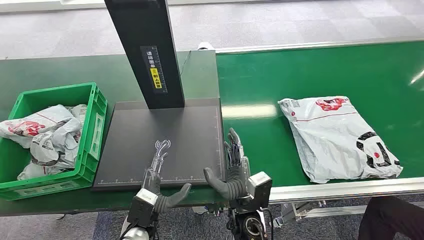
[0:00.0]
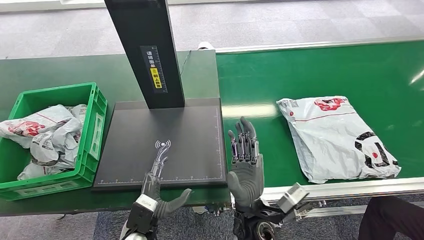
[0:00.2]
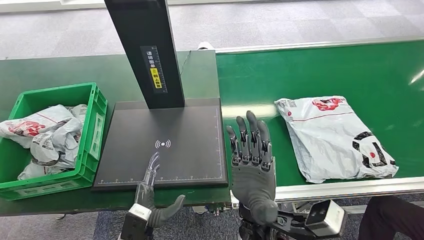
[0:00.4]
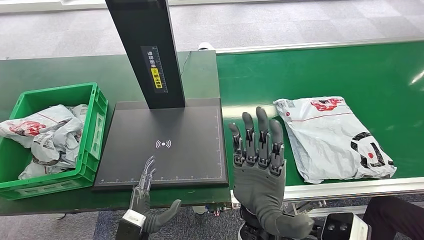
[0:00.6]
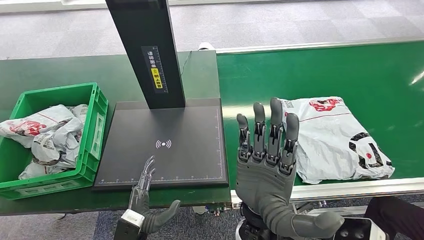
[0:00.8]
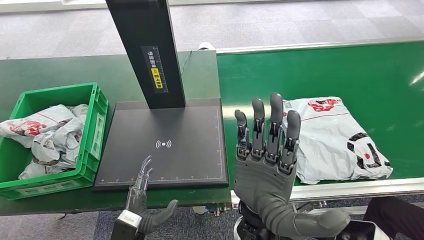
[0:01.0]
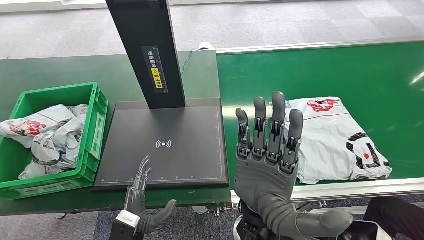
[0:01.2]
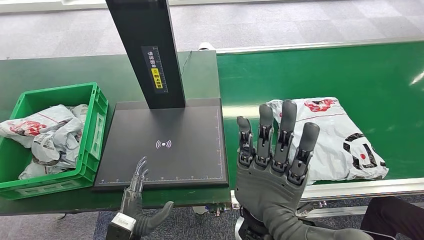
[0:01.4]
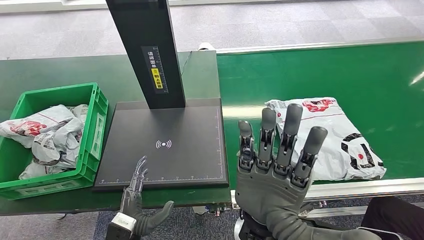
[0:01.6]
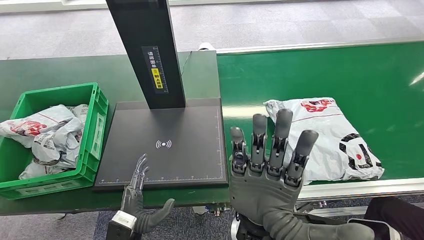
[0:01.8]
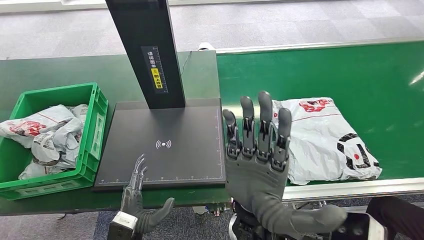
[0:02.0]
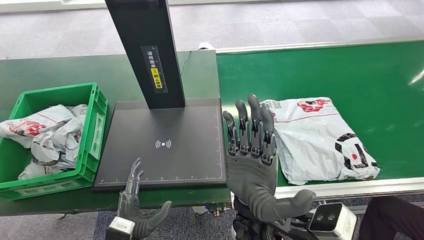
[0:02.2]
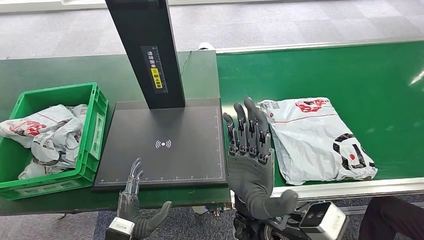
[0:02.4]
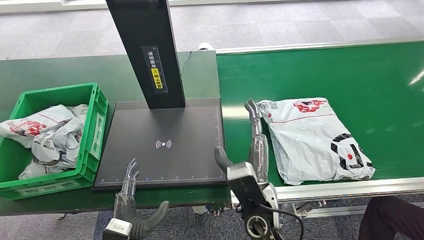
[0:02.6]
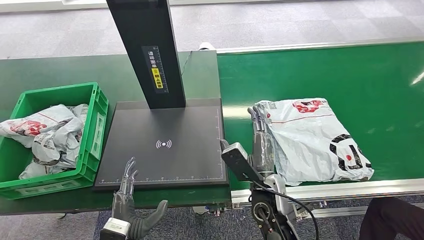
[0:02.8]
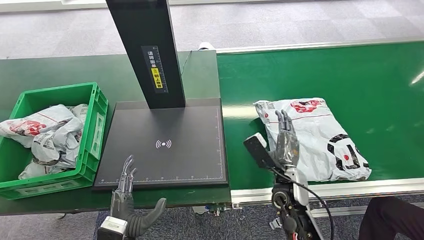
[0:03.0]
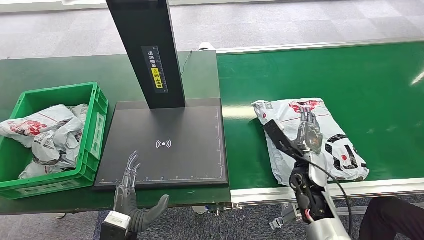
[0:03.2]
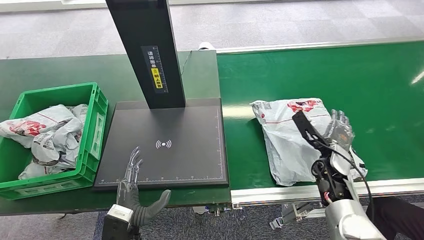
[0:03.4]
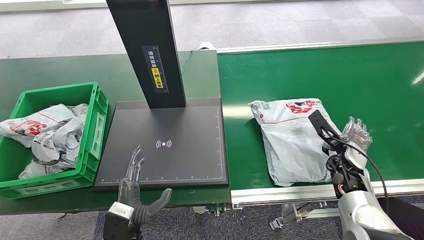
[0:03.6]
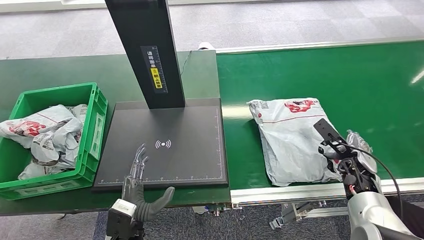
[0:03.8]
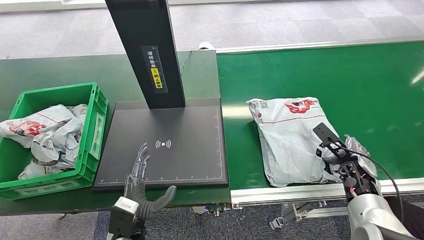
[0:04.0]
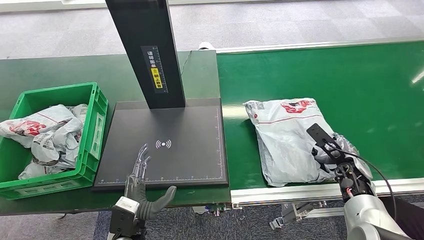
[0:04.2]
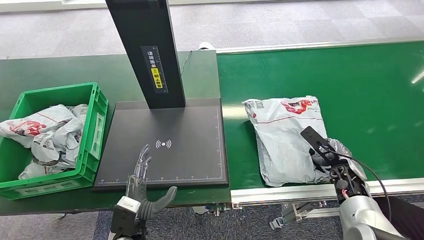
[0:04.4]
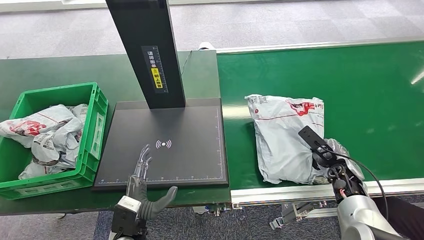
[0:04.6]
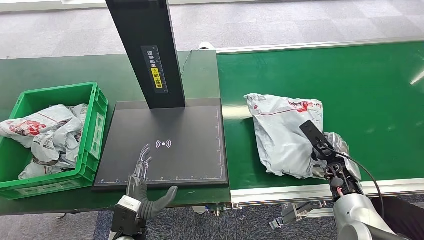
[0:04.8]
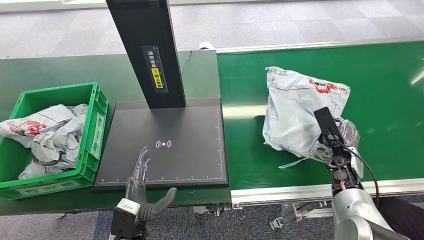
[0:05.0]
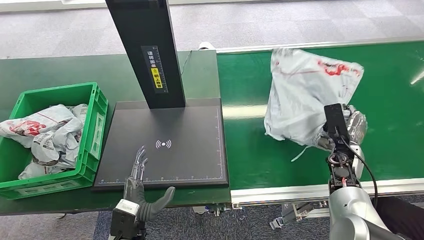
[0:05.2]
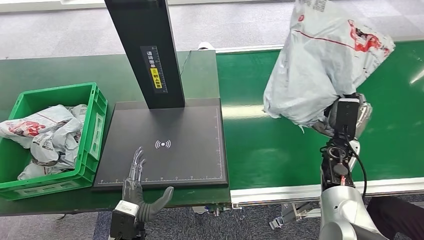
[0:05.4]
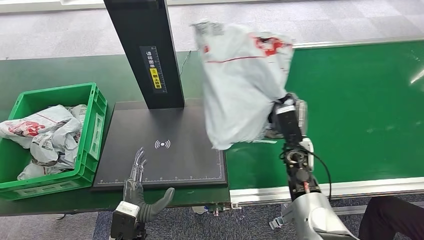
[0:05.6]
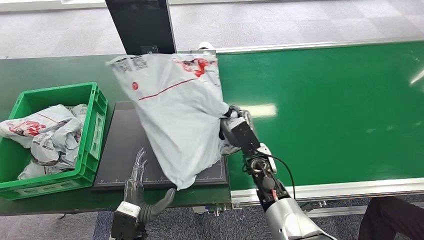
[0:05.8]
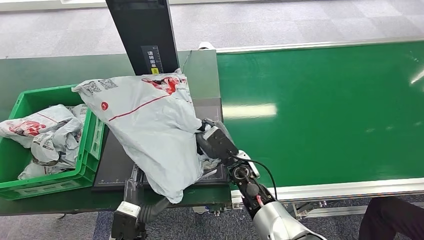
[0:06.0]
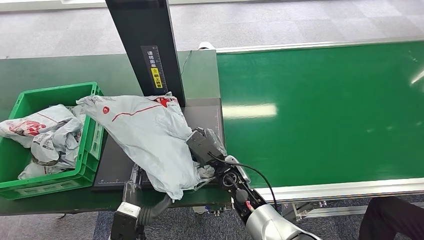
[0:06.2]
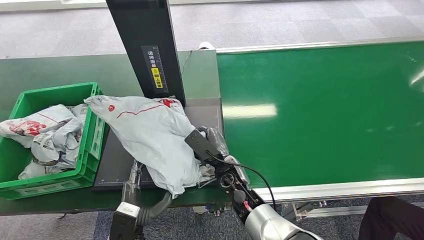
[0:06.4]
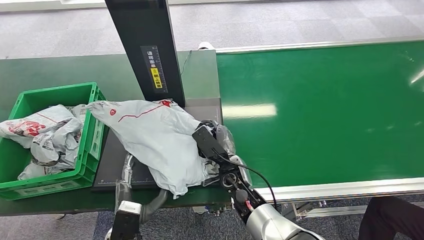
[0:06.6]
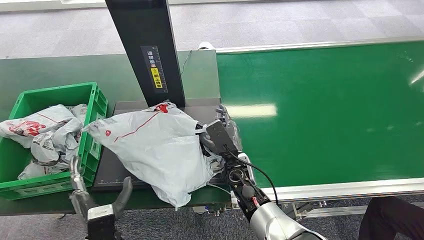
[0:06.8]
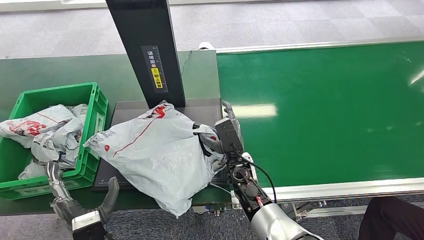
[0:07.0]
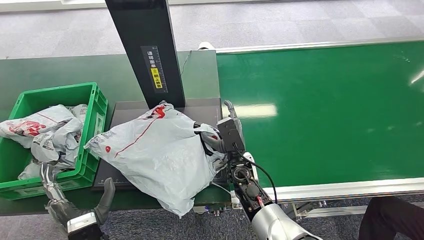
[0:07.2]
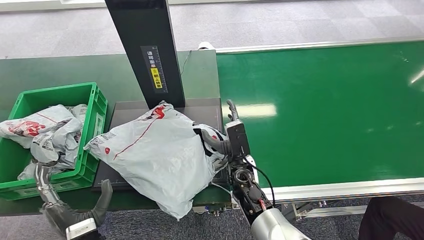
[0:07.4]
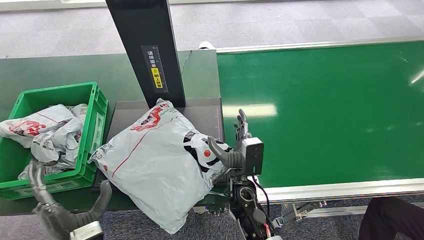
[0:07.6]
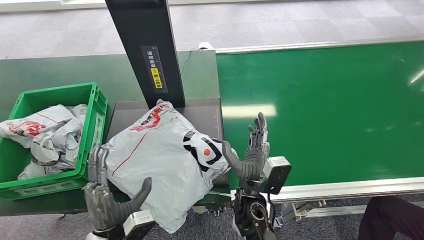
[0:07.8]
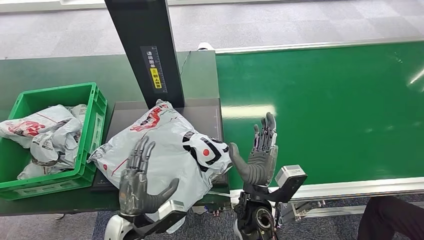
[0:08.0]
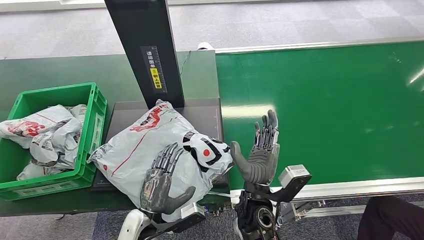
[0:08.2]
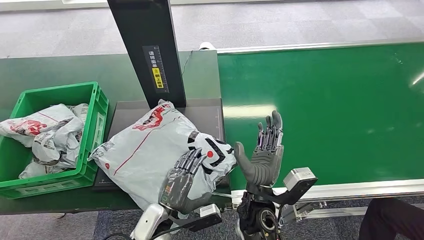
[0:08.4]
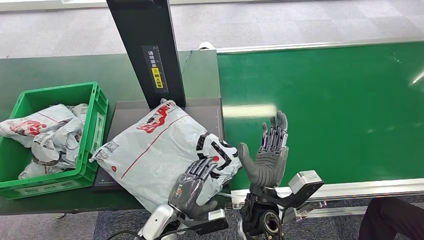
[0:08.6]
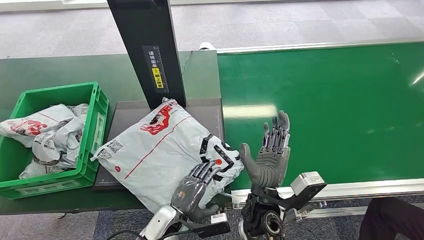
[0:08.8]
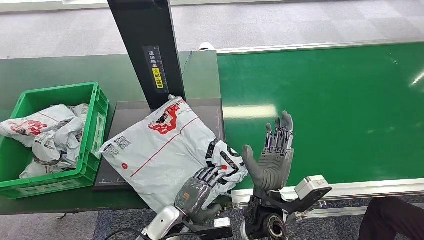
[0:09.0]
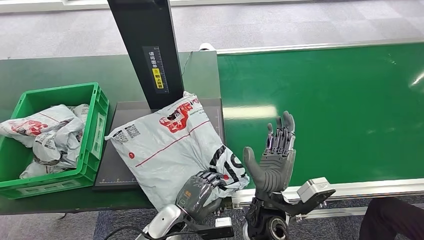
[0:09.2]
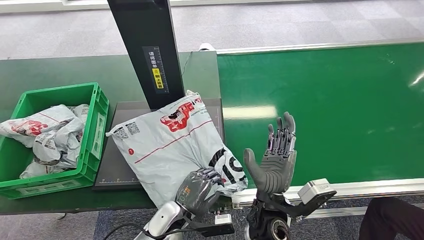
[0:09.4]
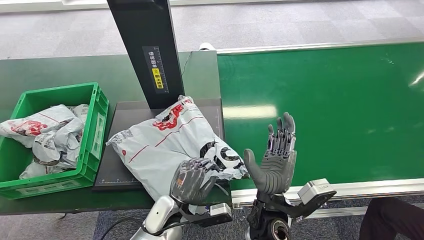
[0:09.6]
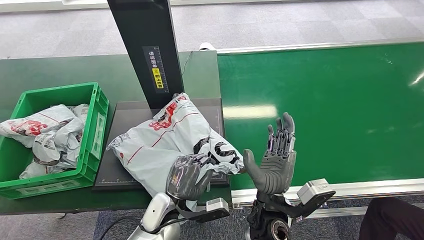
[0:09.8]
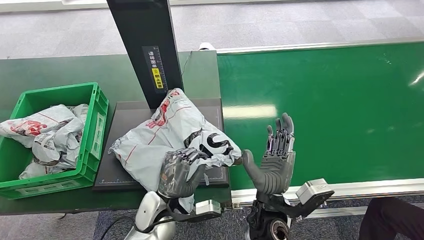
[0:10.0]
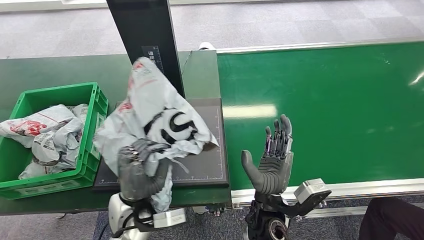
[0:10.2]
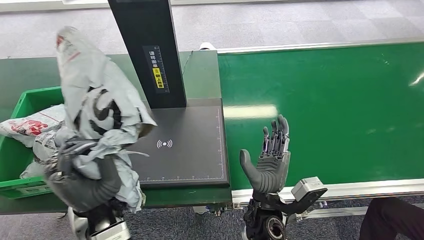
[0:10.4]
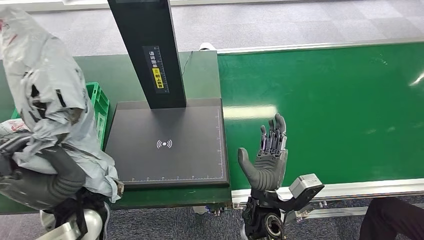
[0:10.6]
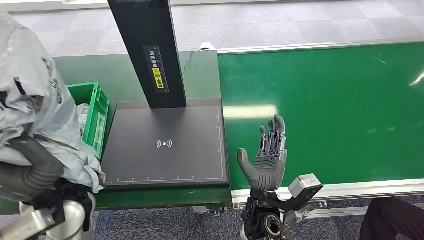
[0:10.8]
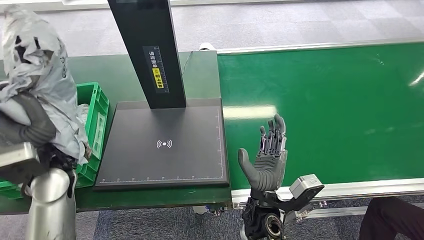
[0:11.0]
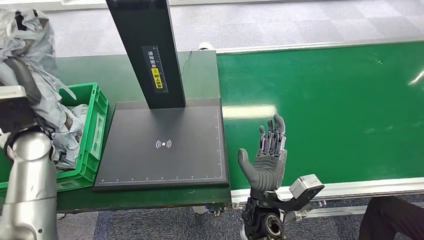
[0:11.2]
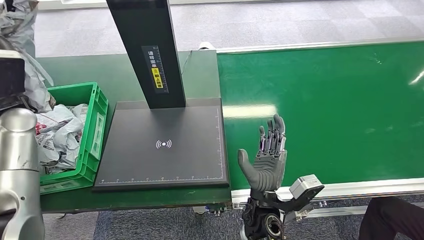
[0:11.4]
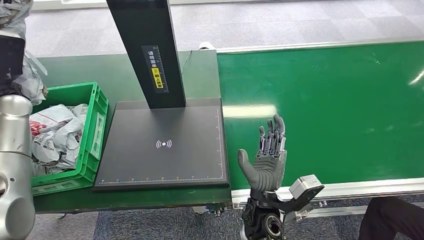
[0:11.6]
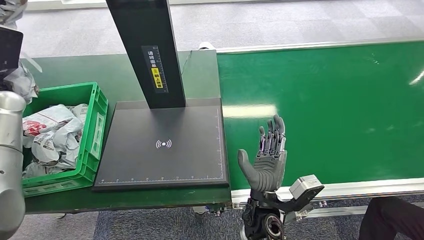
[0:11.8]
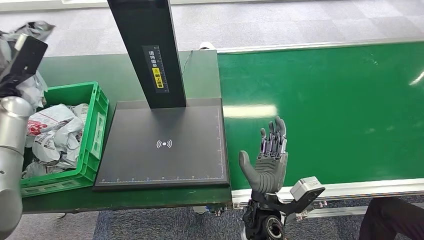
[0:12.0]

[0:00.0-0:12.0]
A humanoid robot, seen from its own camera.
Step, 0:00.0 to 0:05.0: Pick up the package from the conveyor belt.
Step, 0:05.2 to 0:07.8: Place the package onto the inbound machine.
Step, 0:08.0 to 0:11.0: Pick up the package from the inbound machine.
0:01.6 to 0:03.0: The right hand shifts some 25 cm downward, to the right and forward.
0:03.0 to 0:04.4: The right hand moves to the right, roughly 20 cm.

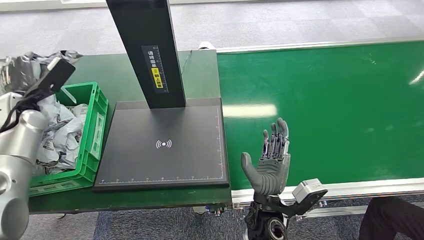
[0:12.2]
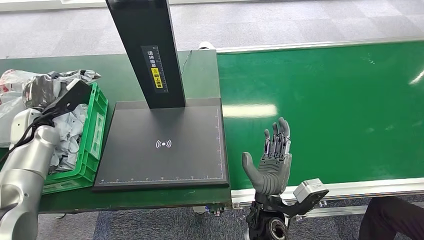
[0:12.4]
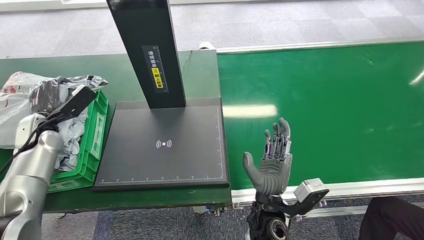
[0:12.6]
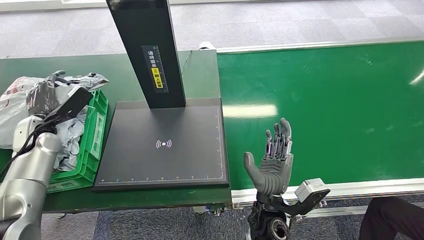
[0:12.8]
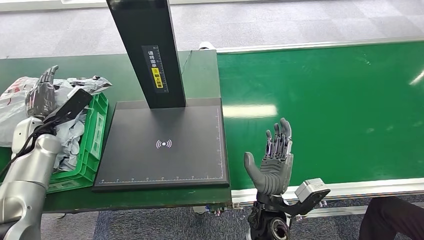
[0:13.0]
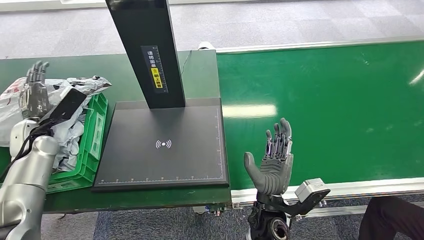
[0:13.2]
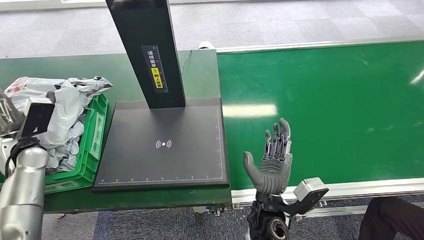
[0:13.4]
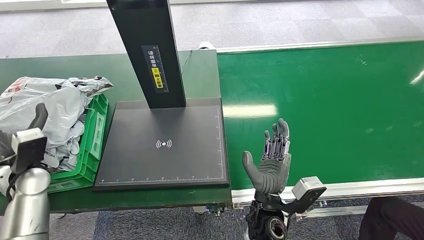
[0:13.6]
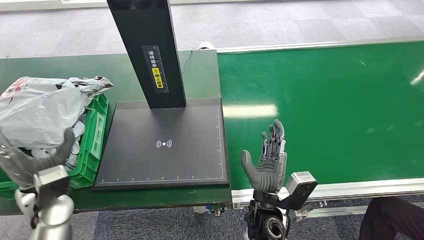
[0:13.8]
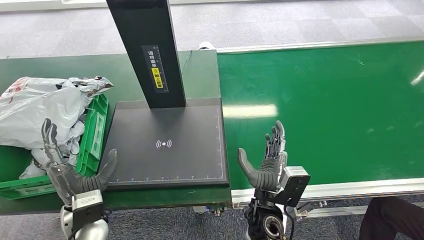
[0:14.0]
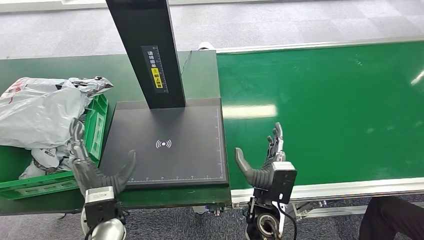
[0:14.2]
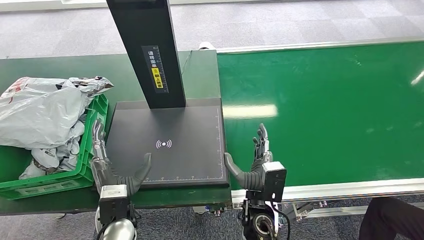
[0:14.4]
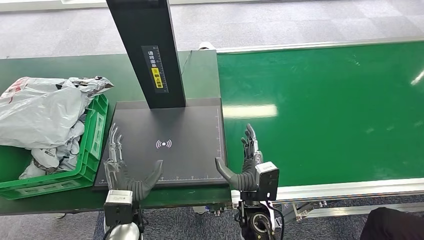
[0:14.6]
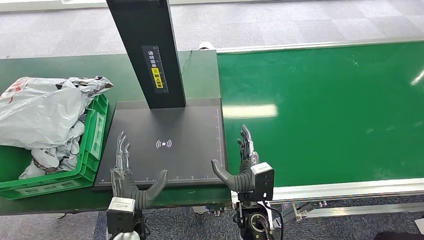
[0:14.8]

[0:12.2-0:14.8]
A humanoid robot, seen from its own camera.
Step, 0:12.2 to 0:14.8: Place the package into the parcel locker.
0:12.2 to 0:13.4: The left hand travels backward and downward by about 10 cm.
0:13.4 to 0:14.8: The left hand shifts about 35 cm to the right, backward and downward.
